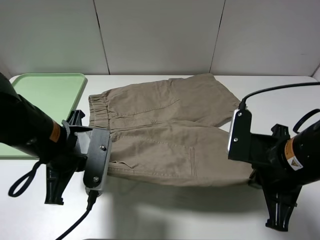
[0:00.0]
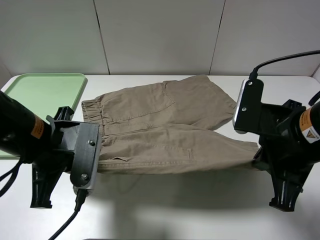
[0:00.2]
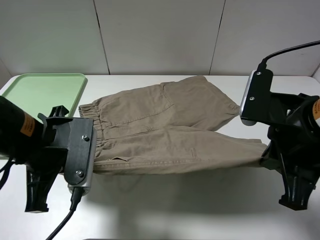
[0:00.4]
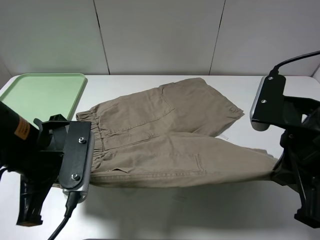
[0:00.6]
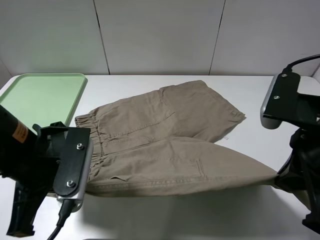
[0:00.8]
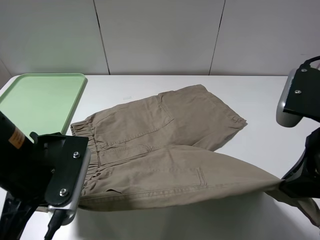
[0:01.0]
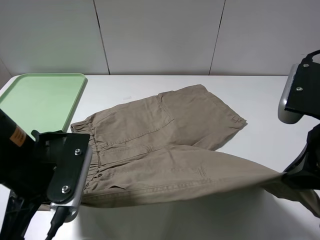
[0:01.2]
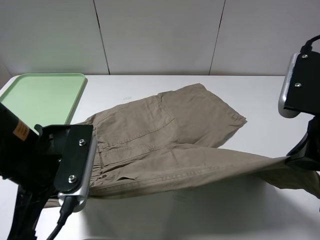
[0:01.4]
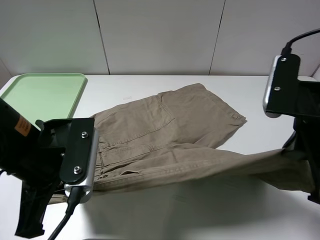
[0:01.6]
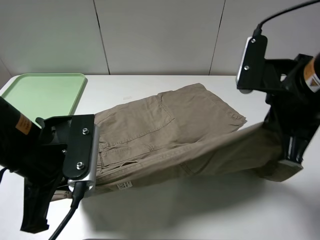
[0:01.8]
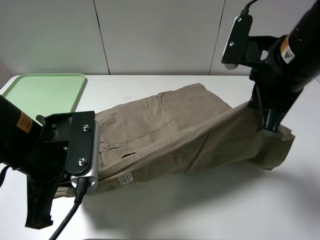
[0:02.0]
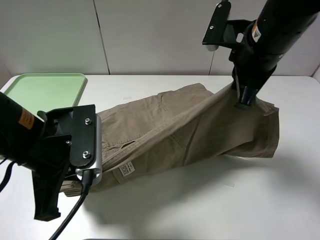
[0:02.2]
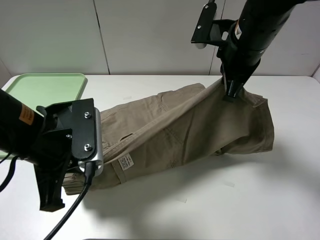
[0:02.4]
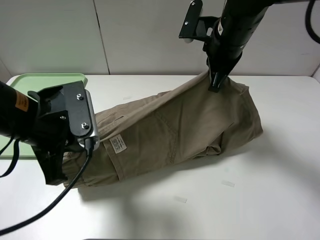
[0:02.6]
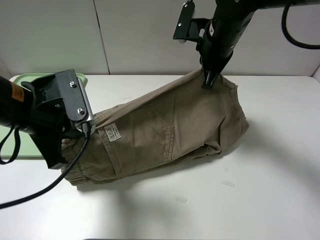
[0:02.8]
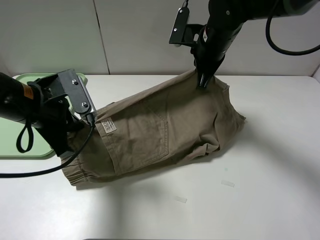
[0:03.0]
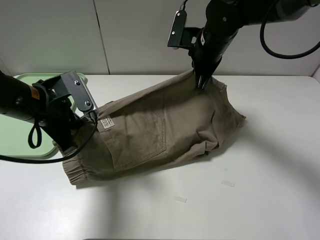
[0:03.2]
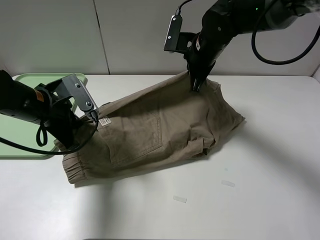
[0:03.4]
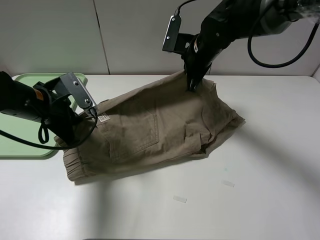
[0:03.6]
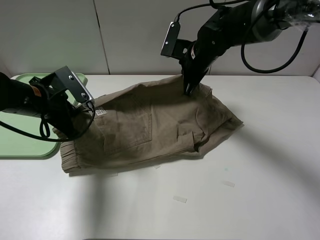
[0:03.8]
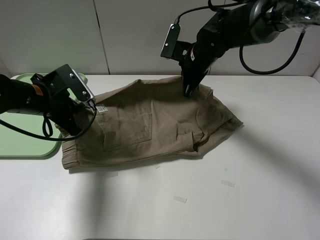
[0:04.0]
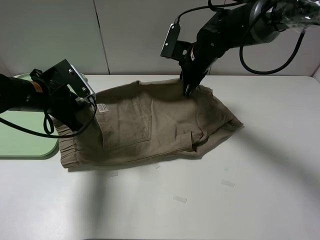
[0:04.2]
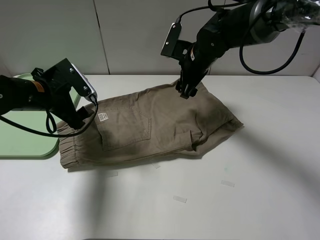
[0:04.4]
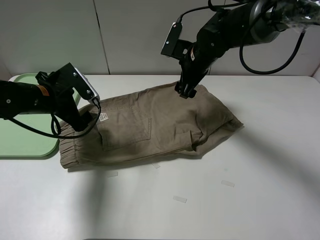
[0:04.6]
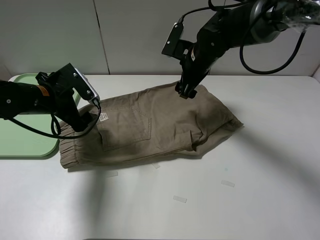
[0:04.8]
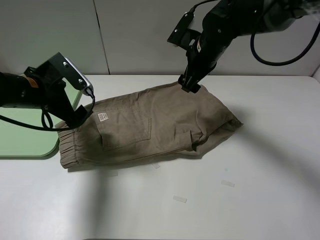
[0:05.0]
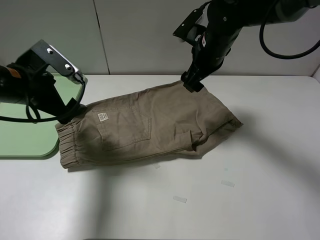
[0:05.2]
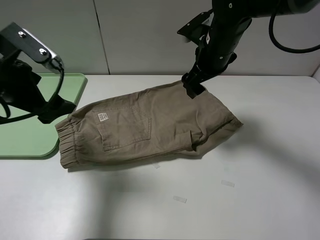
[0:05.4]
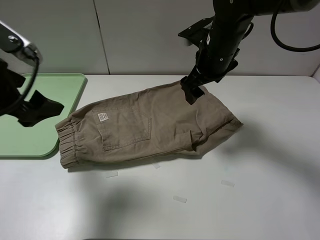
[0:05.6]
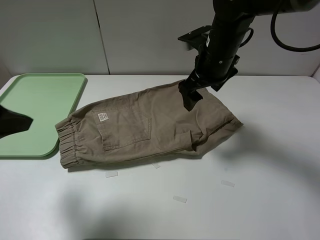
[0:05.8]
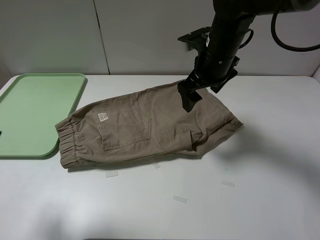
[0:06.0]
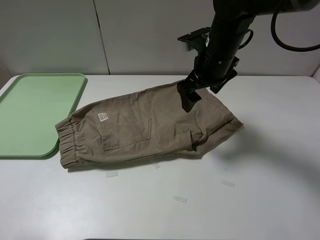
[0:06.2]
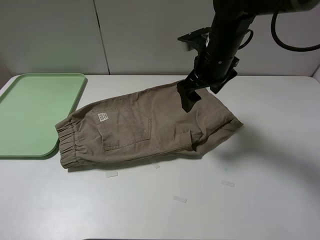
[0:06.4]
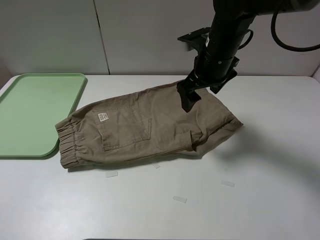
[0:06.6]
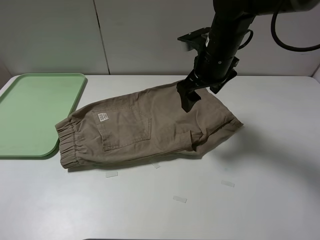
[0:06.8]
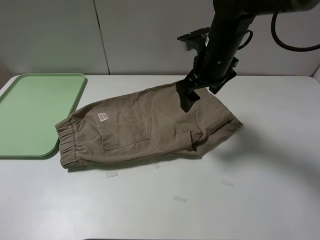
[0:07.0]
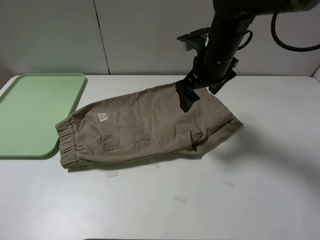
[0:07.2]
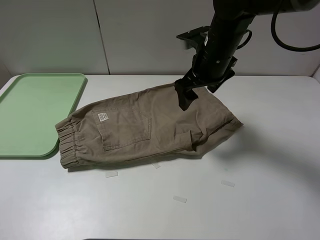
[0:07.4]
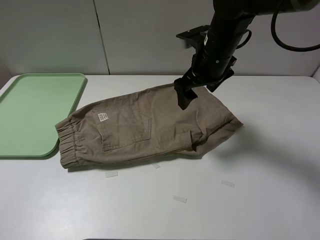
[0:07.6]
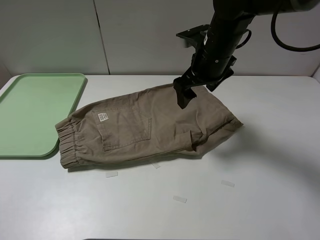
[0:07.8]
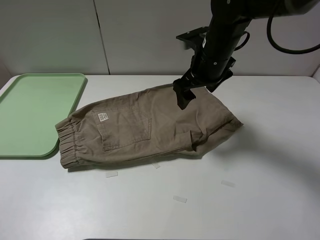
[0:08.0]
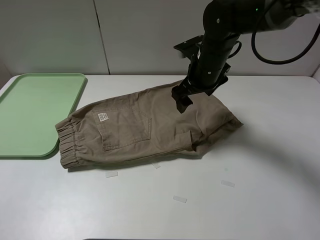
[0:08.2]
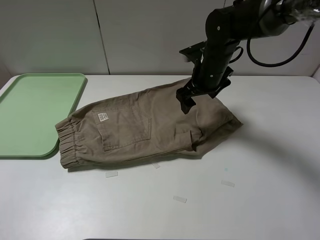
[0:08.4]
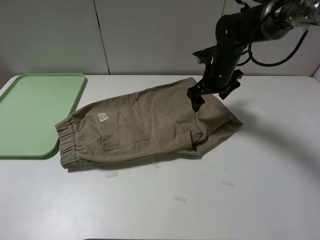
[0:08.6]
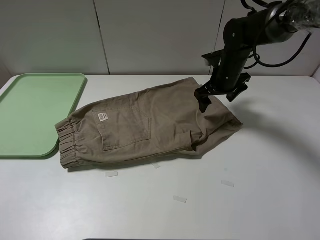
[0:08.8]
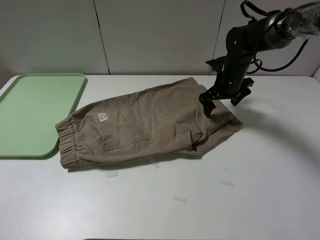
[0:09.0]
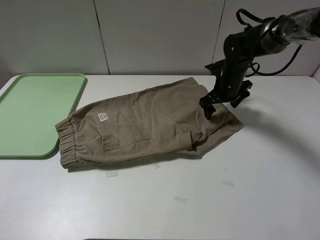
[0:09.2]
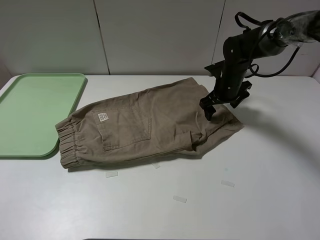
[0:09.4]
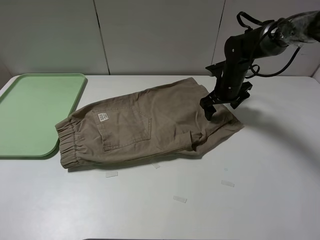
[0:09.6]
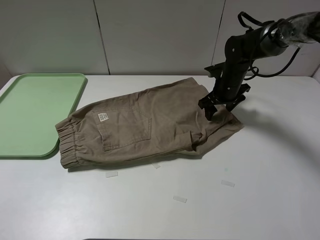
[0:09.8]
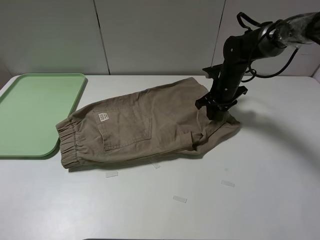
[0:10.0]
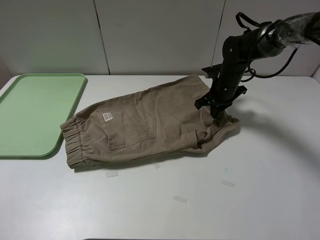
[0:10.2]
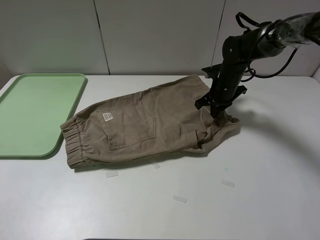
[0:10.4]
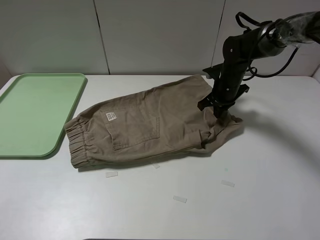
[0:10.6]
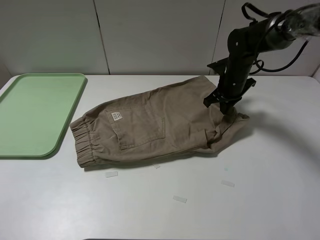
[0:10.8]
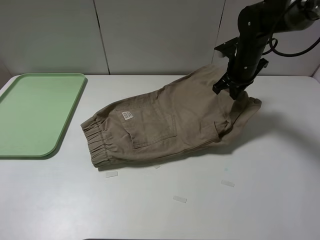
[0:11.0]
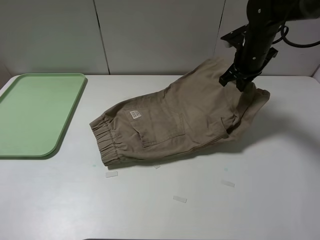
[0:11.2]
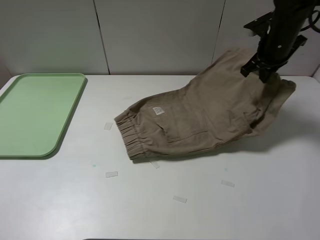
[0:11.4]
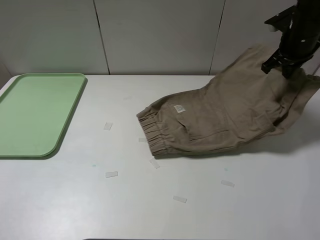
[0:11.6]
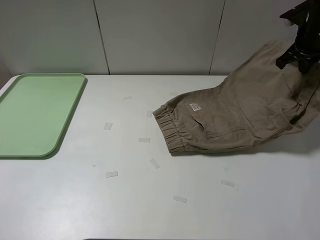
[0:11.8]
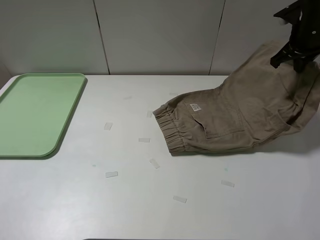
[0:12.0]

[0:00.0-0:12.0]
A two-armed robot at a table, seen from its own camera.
Task of the whole recording: fold the khaki jeans in half with two grippers, then fold them in half again, and use the left claw to place the folded fold khaki jeans on the tray.
Step, 0:00.0 to 0:04.4: Fold the khaki trousers upwards with the left gripper.
Step, 0:04.6 to 0:10.6: Grasp the khaki trousers with the right gripper.
0:00.0 to 0:01.6: The right gripper shifts some 10 cm upward.
0:01.6 to 0:03.0: The right gripper travels forward by roughly 25 cm. The left gripper shifts approximately 10 cm forward.
0:03.0 to 0:04.4: The left gripper moves forward, roughly 5 cm, and opens up. Meanwhile the right gripper heads downward, covering approximately 5 cm, and opens.
0:04.4 to 0:06.0: The left gripper moves backward and upward, approximately 25 cm. Meanwhile the right gripper shifts approximately 5 cm backward.
0:06.0 to 0:07.6: The left gripper goes roughly 10 cm backward.
0:07.6 to 0:09.0: The right gripper is displaced downward, forward and to the right by roughly 15 cm.
0:09.0 to 0:10.4: The right gripper closes up.
0:10.4 to 0:12.0: The right gripper is displaced upward and to the right by approximately 20 cm.

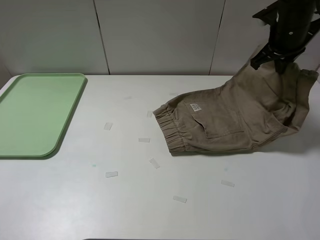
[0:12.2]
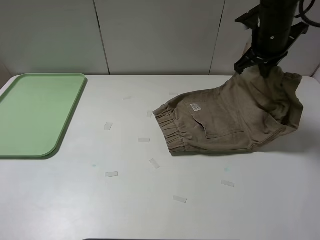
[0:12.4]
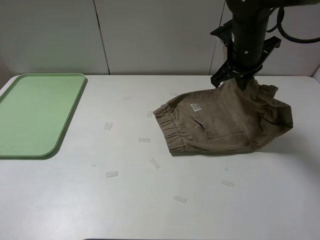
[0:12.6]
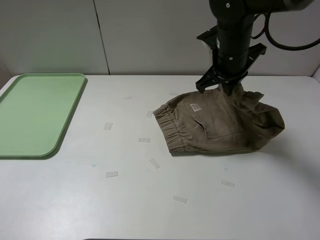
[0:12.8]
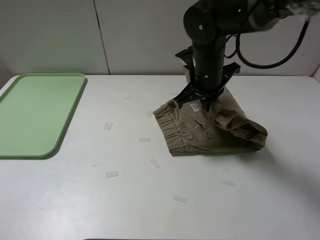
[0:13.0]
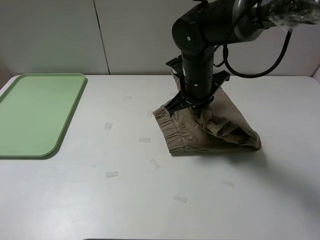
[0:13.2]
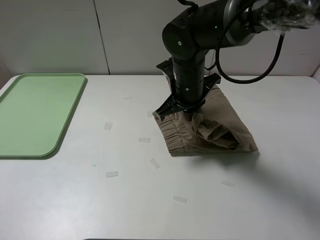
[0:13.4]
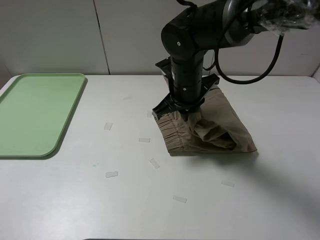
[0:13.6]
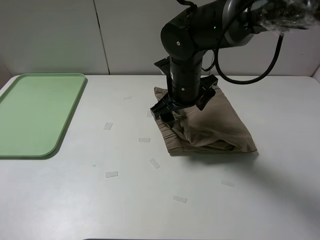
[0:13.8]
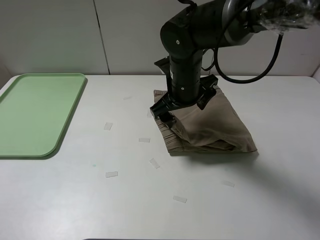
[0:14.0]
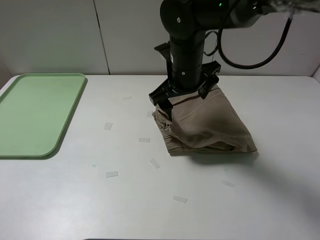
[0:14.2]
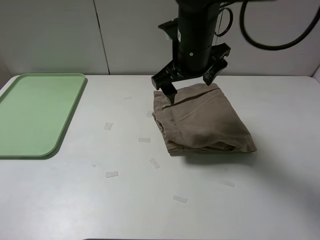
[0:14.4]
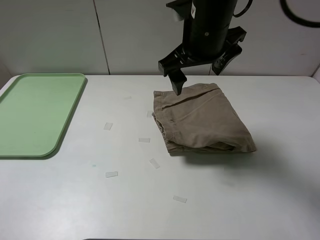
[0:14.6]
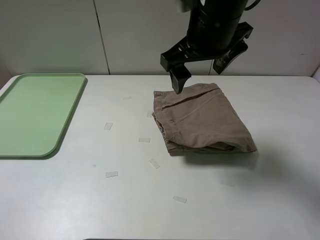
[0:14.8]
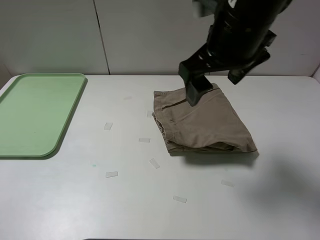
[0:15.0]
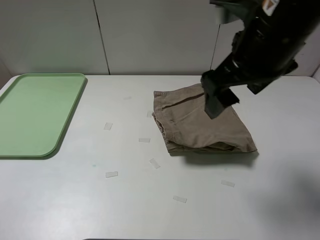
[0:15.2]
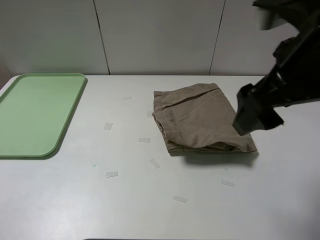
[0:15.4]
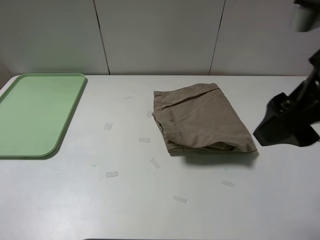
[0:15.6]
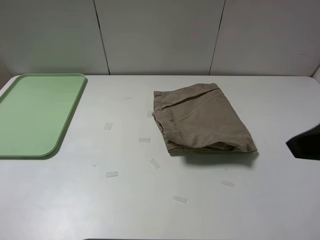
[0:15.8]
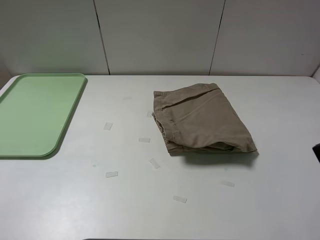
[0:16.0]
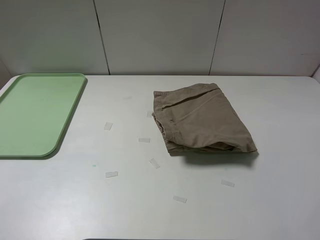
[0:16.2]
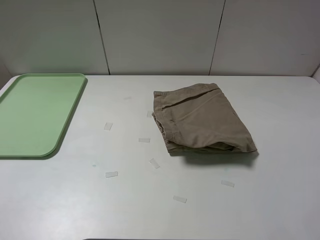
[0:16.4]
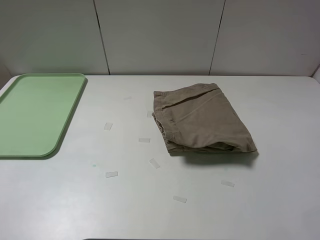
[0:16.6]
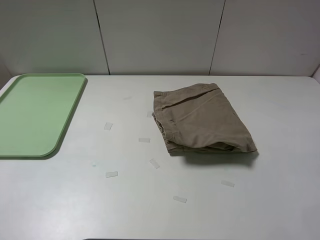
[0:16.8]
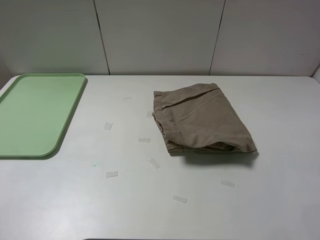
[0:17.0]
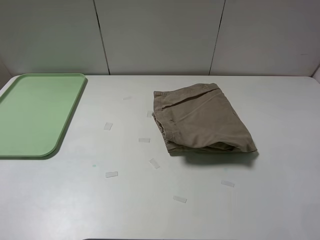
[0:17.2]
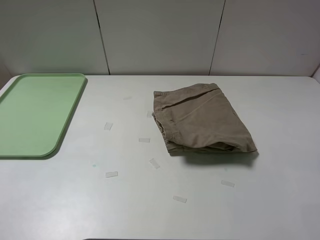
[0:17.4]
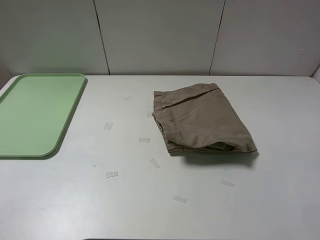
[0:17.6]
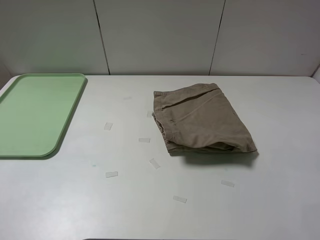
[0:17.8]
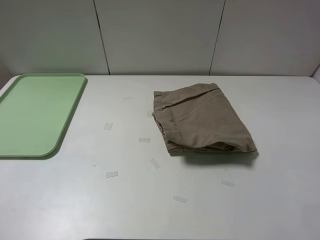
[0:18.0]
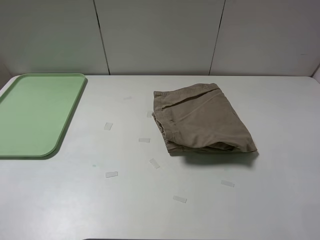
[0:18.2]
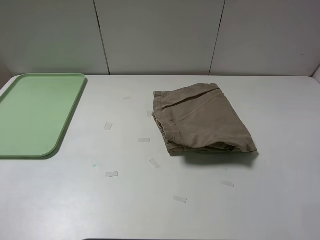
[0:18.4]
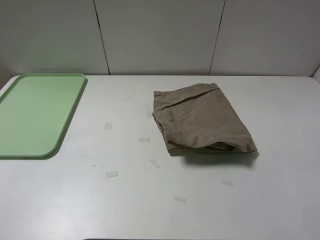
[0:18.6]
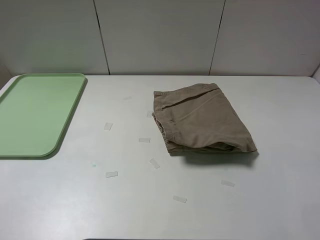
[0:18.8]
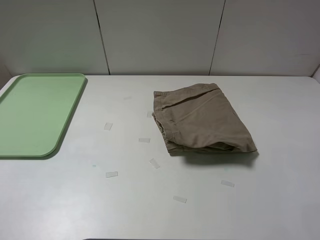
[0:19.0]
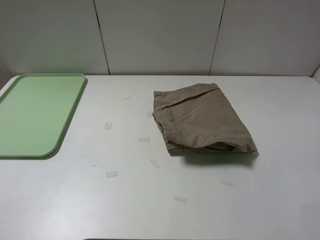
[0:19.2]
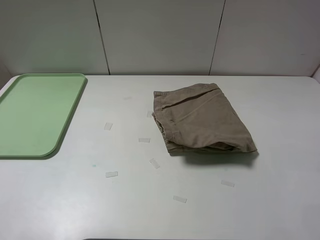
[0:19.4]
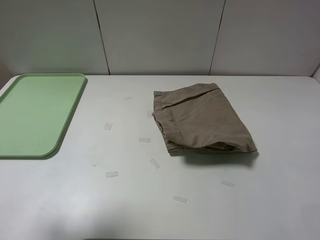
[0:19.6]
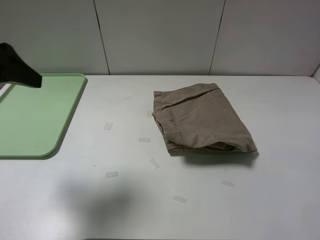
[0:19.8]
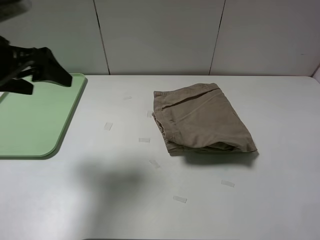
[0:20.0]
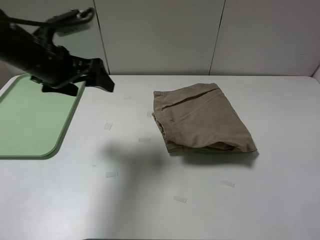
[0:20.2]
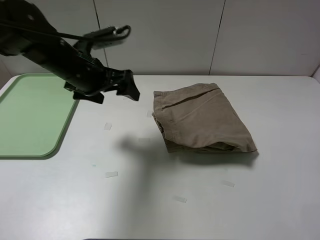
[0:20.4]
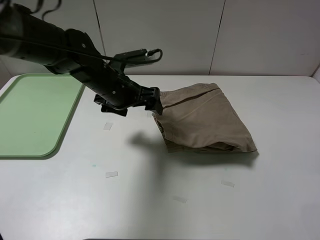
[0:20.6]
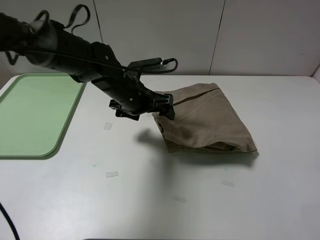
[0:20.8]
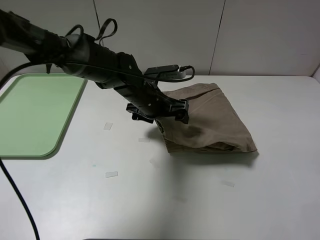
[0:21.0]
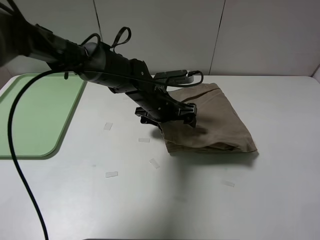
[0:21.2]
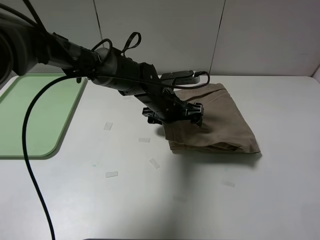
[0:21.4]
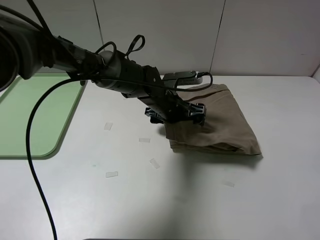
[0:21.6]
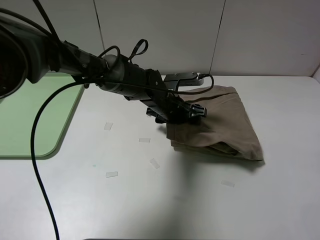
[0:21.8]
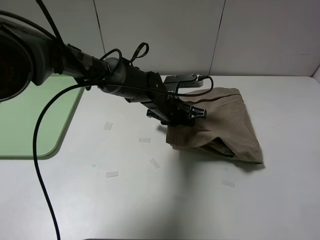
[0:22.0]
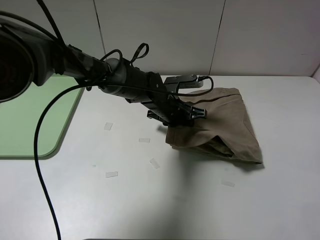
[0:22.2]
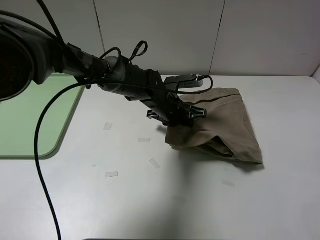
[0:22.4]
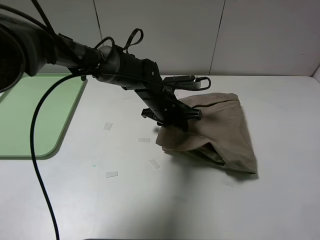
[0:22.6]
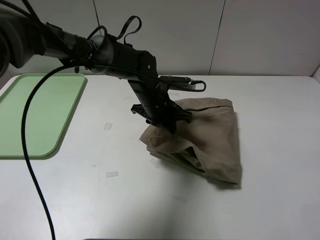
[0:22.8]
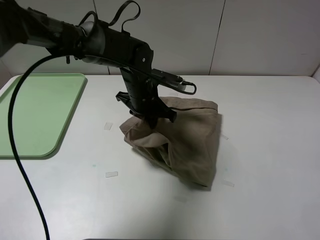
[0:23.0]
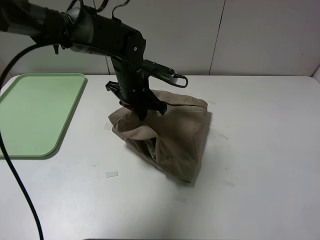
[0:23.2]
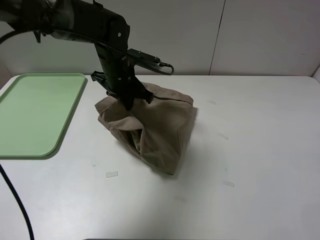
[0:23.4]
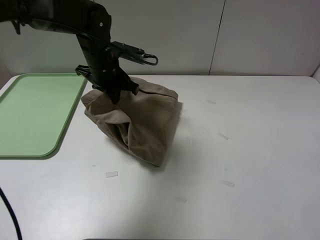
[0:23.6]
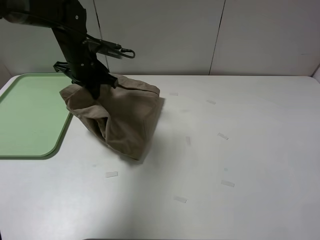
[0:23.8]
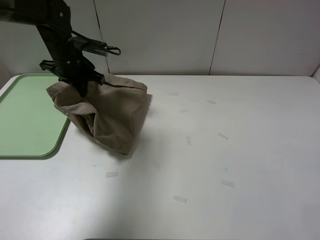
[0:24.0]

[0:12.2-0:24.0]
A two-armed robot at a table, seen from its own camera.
Task of the whole recording: fold the khaki jeans in half with two grippers, then fold them in half again, and use the left claw to place the folded fold khaki jeans on the tray.
Step, 0:12.2 to 0:14.2: Fold the khaki trousers from right to left with the right gripper.
Step, 0:14.4 to 0:22.0: Grasp the khaki trousers with the left gripper.
0:12.2 to 0:13.6: The right gripper travels to the left and downward by roughly 20 cm.
0:13.6 to 0:15.2: The right gripper goes about 20 cm upward, backward and to the right, and opens.
0:15.2 to 0:16.6: The right gripper is displaced backward and to the right by some 25 cm.
0:18.2 to 0:19.6: The left gripper shifts some 15 cm forward.
0:19.6 to 0:21.0: The left gripper moves to the right, forward and downward, about 40 cm.
0:21.0 to 0:22.6: The left gripper closes.
0:22.6 to 0:24.0: The left gripper moves to the left and upward, about 25 cm.
